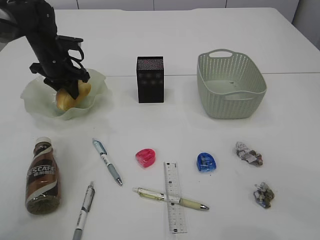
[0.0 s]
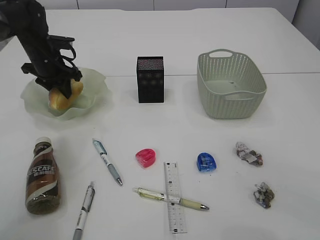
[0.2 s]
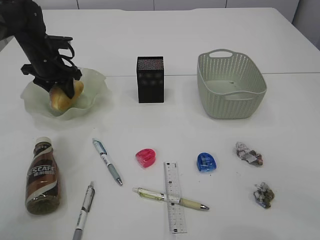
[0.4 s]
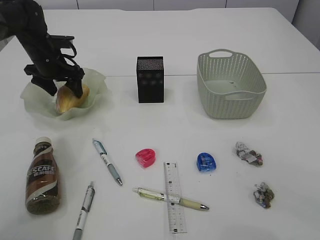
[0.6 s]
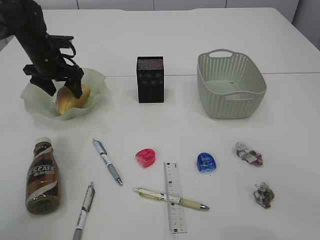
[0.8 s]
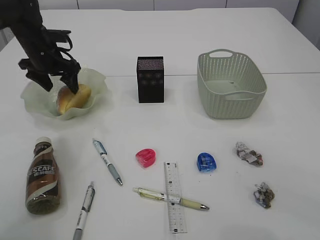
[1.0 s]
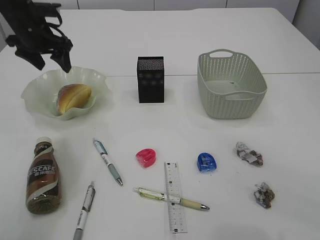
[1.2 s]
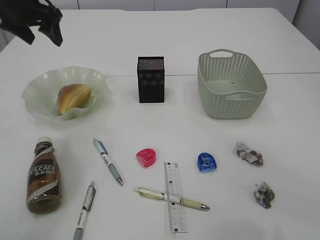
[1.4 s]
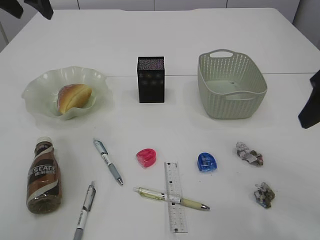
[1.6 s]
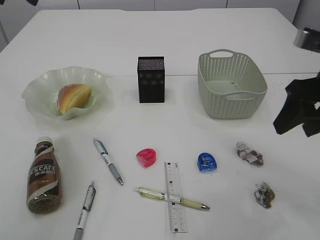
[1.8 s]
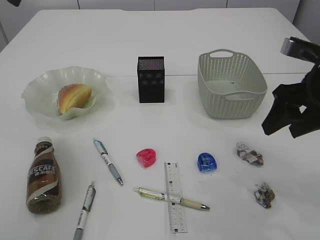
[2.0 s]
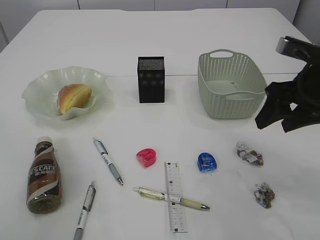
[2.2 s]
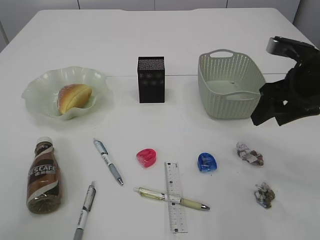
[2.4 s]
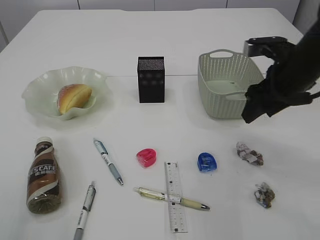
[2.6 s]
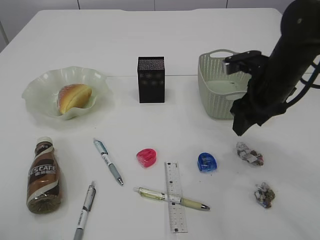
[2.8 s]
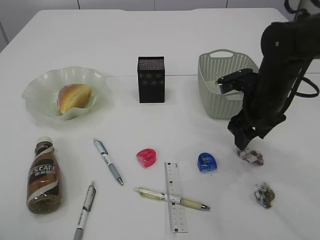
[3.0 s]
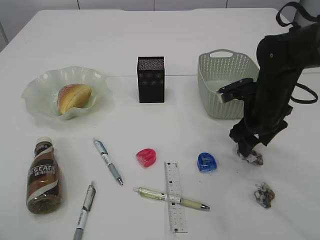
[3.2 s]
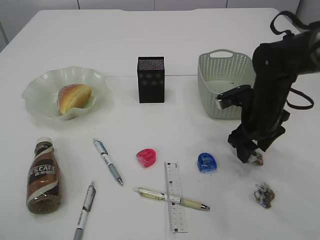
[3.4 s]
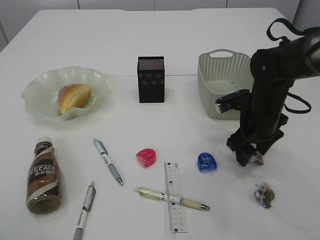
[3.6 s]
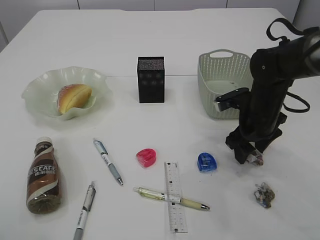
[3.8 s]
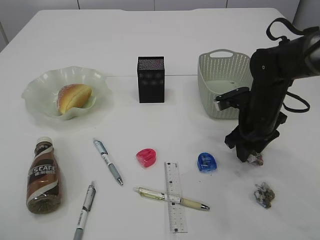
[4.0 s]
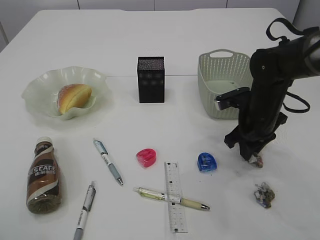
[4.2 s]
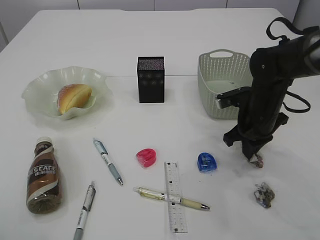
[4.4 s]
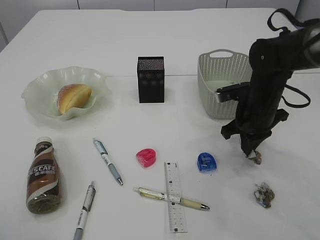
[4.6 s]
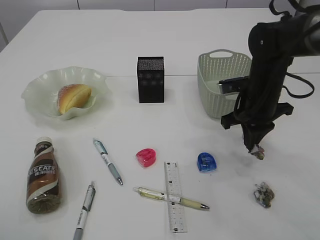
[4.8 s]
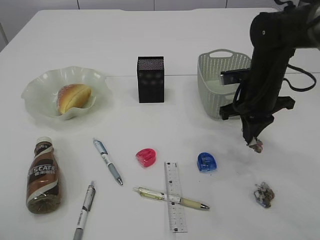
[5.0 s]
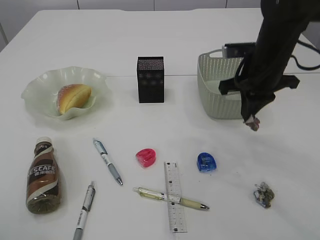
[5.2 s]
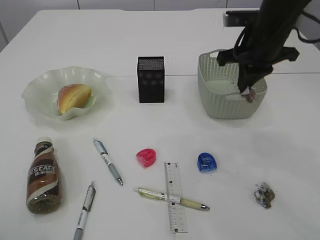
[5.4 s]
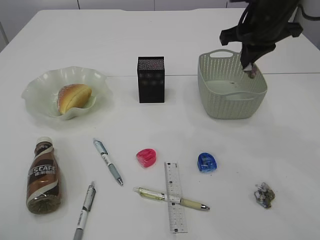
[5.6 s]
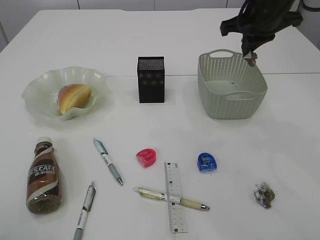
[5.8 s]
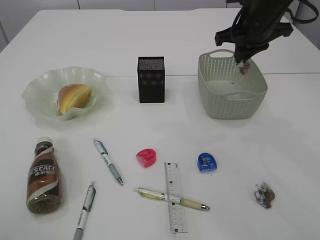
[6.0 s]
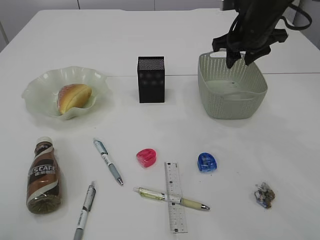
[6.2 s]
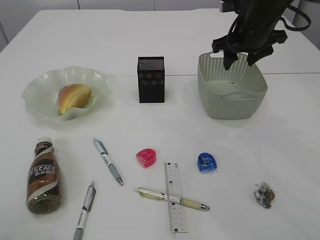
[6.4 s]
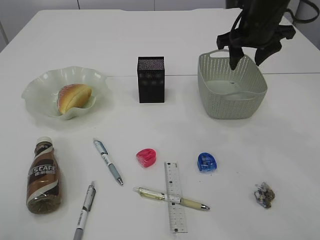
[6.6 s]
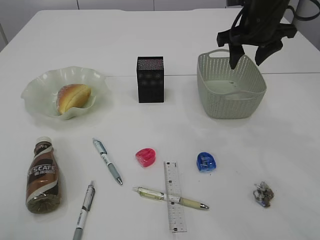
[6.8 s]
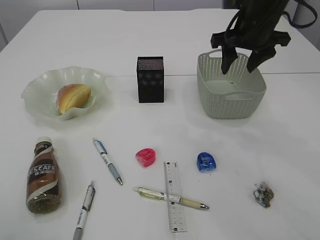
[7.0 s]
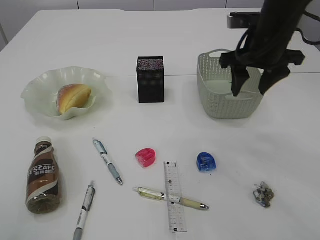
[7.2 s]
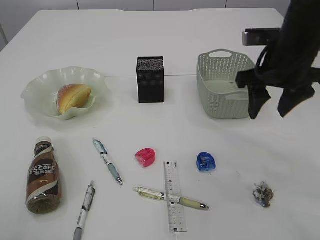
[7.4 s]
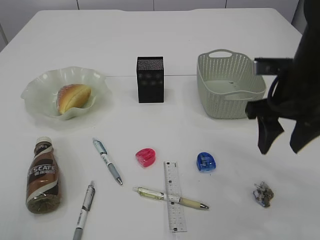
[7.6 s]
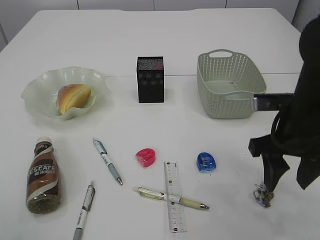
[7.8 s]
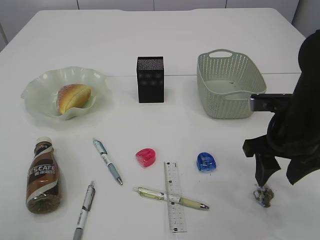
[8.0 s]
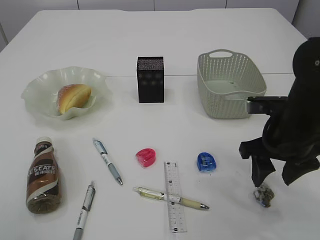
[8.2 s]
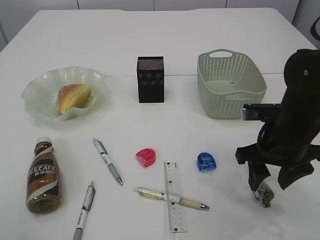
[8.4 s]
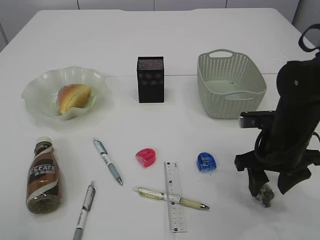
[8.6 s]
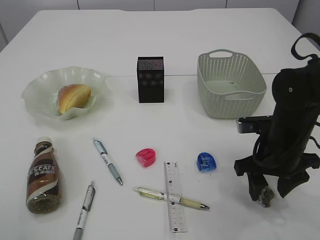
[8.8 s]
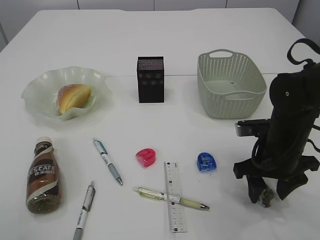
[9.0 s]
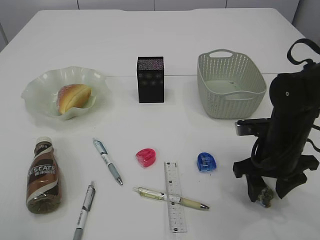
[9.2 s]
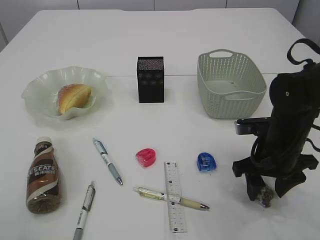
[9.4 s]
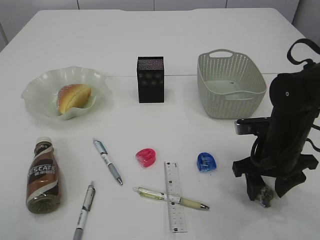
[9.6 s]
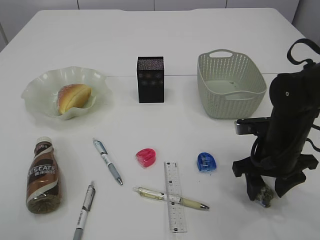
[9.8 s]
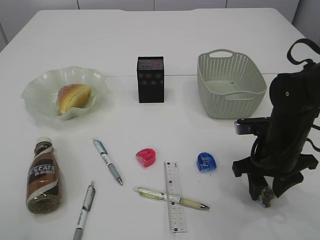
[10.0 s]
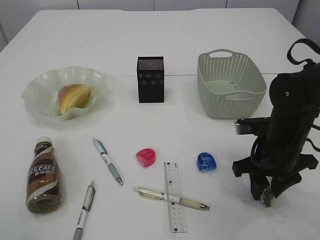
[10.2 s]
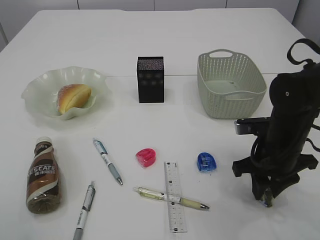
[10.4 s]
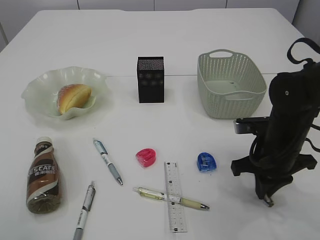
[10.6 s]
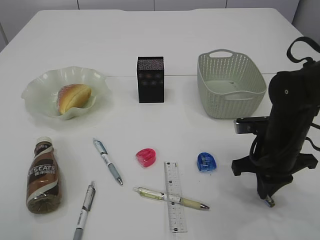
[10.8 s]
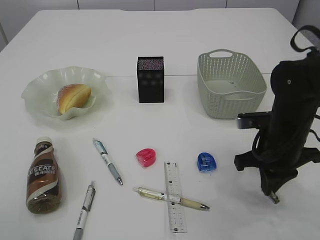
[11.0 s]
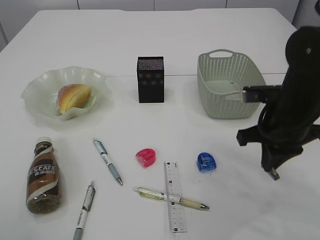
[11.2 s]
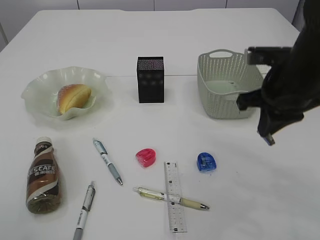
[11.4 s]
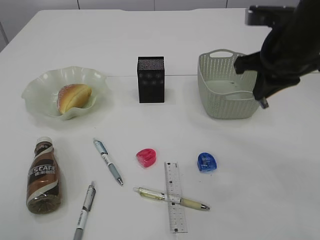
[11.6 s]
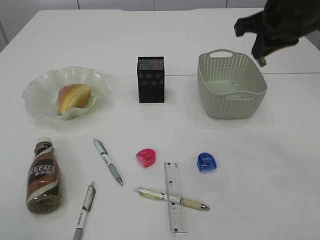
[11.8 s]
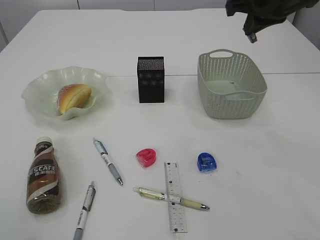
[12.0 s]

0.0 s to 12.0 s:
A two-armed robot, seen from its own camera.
Step, 1.4 to 5.0 s: Pick up the waste paper.
Step, 5.2 to 6.4 s: Place the waste paper in the basket.
Step, 6.6 to 11.2 s: Pick up the waste paper.
0.0 to 1.6 s: The left gripper heads upward, covering approximately 20 cm, and opens its fingers.
1.6 to 3.0 s: The left gripper travels backward and upward by approximately 30 cm, while the right gripper goes roughly 20 cm downward, forward and to the left.
3.0 to 4.4 s: The right gripper closes.
4.4 to 6.0 s: The right gripper goes about 15 cm upward and forward.
6.0 to 7.6 s: The right gripper is displaced backward by some 15 cm, and opens.
7.6 to 9.0 s: The right gripper travels downward by roughly 10 cm.
9.0 to 10.4 s: The right gripper closes its fingers.
10.4 to 12.0 s: The right gripper heads upward, covering some 25 cm, and closes up.

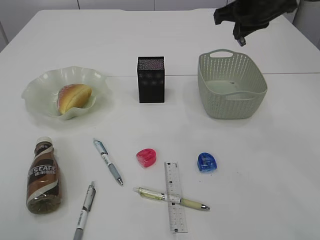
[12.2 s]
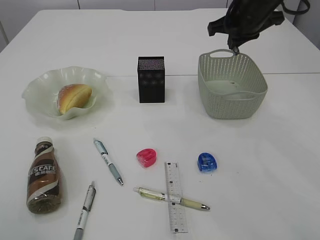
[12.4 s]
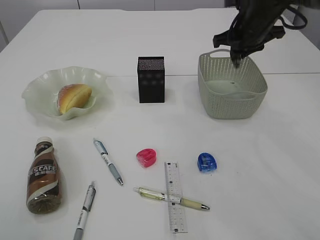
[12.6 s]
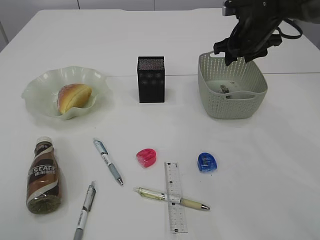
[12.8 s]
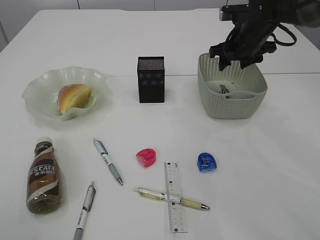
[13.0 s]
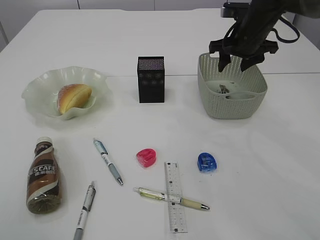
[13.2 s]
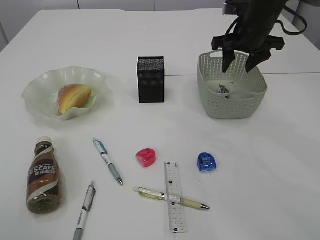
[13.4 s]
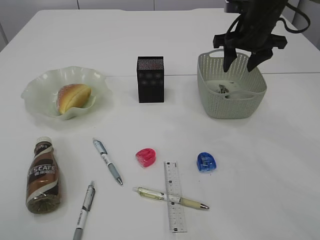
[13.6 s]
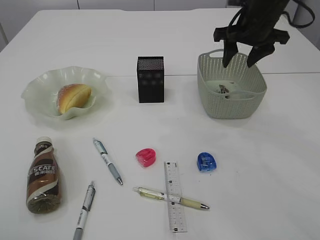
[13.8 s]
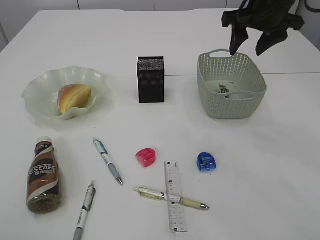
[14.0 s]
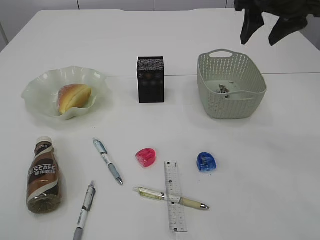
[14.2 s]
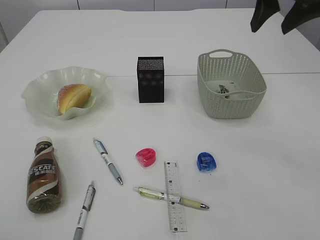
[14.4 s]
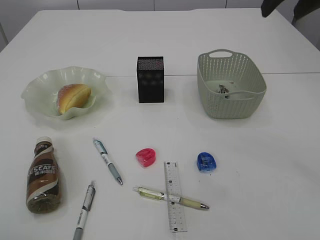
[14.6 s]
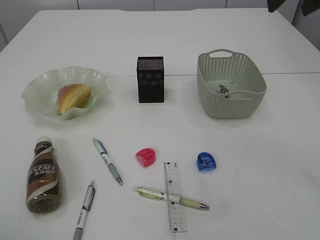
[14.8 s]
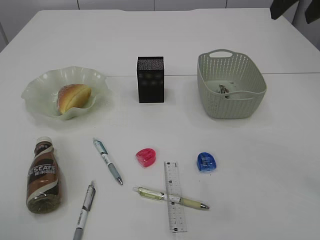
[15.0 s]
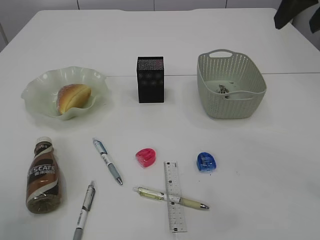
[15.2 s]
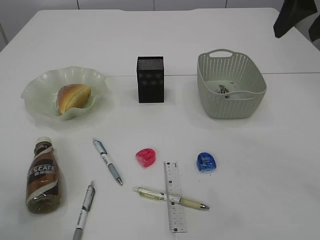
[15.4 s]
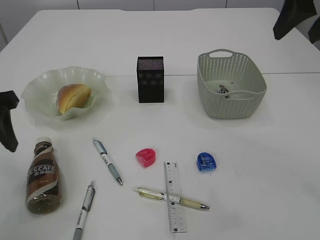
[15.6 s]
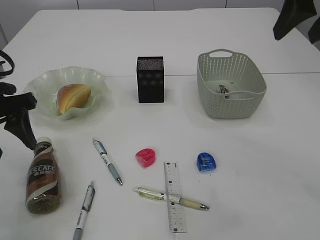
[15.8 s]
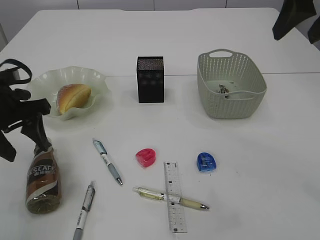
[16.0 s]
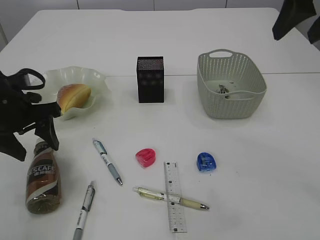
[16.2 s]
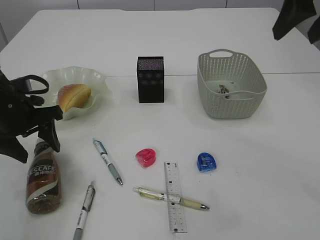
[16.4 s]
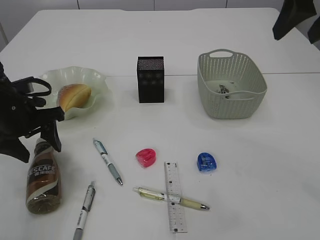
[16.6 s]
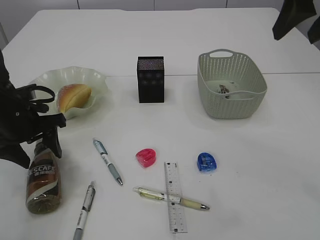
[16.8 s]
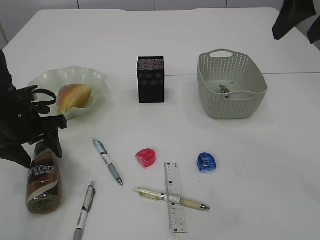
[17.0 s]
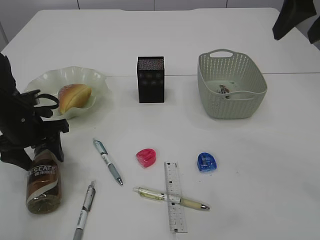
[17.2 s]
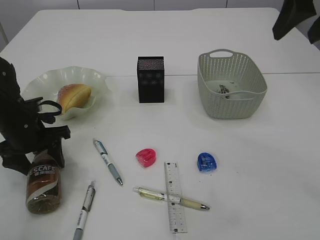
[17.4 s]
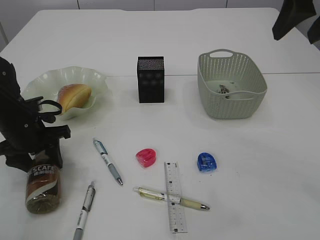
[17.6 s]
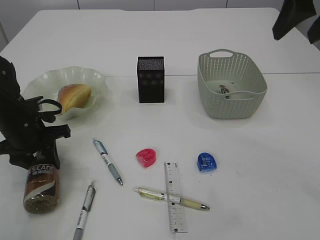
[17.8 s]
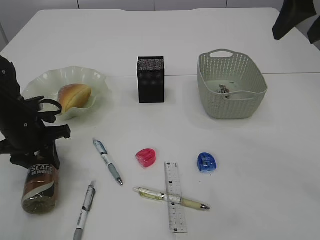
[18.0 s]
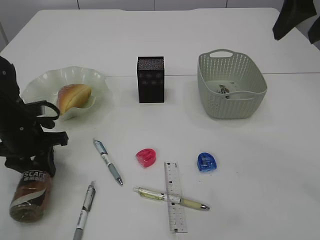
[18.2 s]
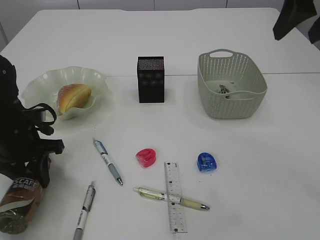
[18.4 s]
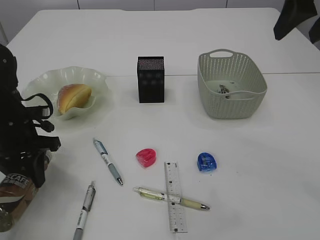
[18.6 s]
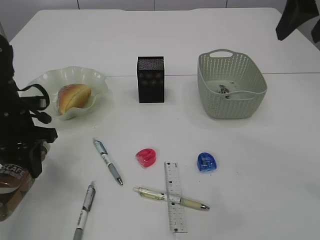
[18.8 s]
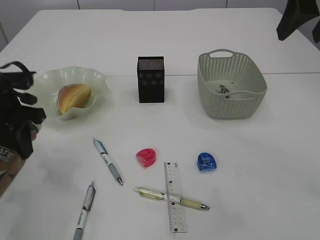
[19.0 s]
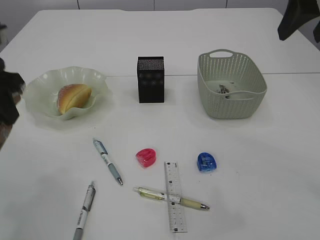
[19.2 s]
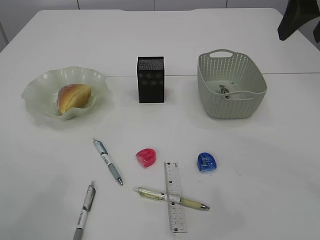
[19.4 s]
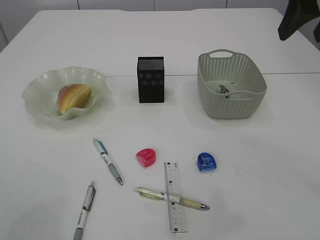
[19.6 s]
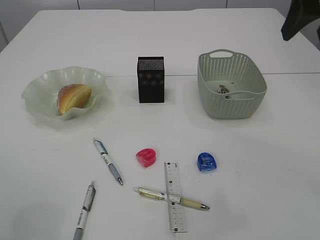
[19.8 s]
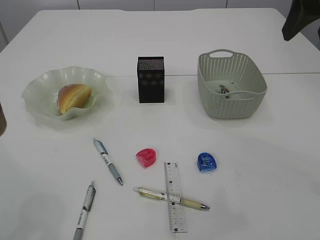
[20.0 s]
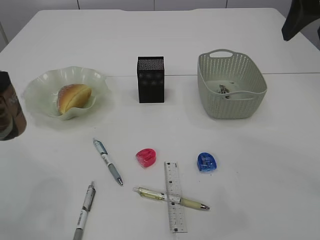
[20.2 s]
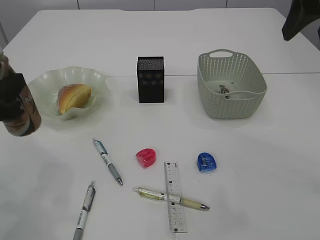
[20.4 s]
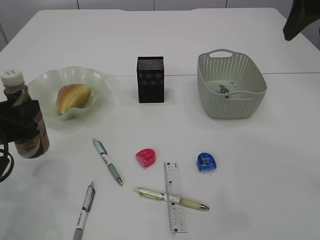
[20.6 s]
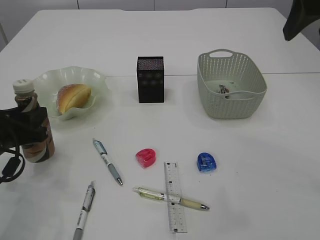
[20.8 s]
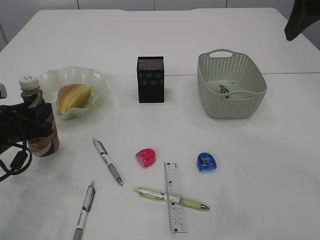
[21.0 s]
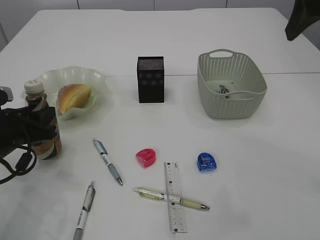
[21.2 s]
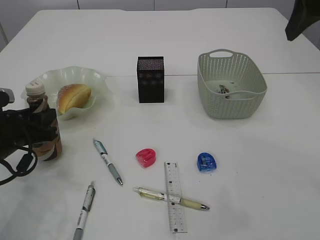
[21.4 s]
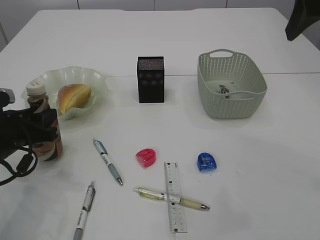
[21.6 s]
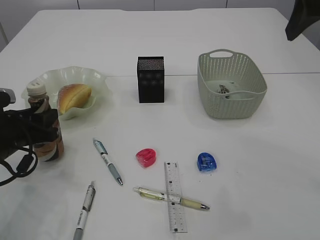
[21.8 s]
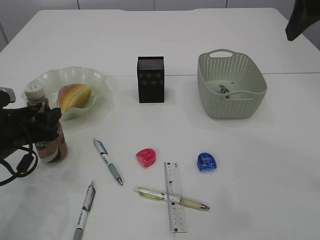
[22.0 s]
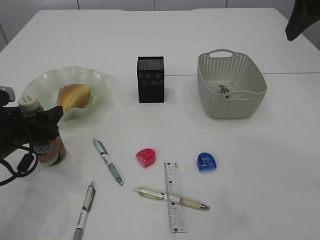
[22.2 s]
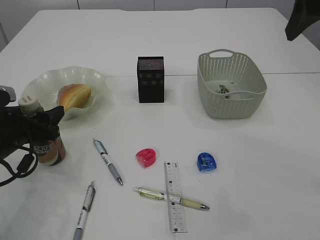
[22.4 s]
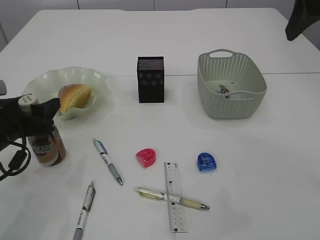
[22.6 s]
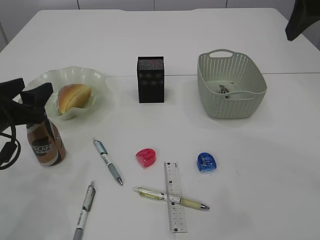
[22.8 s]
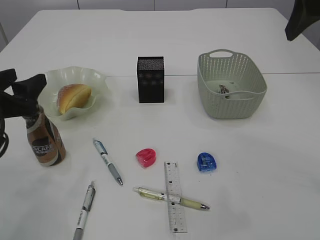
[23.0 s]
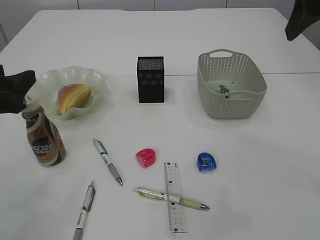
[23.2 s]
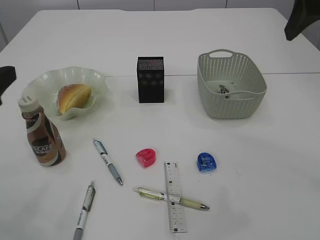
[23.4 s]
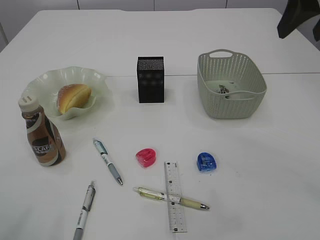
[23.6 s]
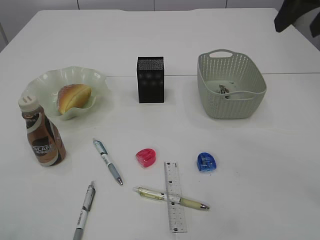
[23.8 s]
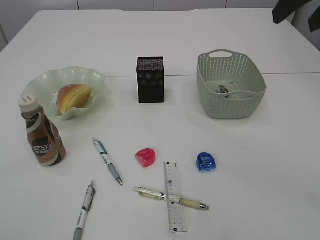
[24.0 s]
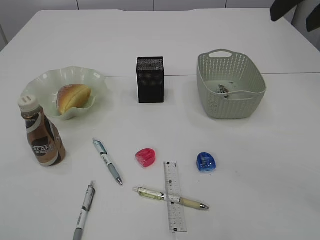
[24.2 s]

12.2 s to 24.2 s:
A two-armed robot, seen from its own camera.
Step, 12.2 to 13.8 s: Place the waste paper in the basket.
Step, 14.0 to 18.8 s: Pick up the bottle with the left arm.
Step, 19.0 to 23.0 s: Place the bottle.
12.2 to 13.8 s: The right gripper opens its fingers.
13.8 to 15.2 s: The left gripper goes some 15 cm downward; the right gripper moves backward and upward, approximately 20 cm.
15.2 to 16.6 s: The left gripper heads downward and forward, covering some 20 cm.
16.6 to 18.2 s: The left gripper closes its fingers.
18.2 to 19.8 s: The left gripper heads upward and backward, covering some 25 cm.
19.8 to 21.2 s: The left gripper goes about 20 cm downward and forward.
21.2 to 22.6 s: The left gripper opens up.
22.6 to 24.2 s: The left gripper heads upward and backward, covering approximately 30 cm.
